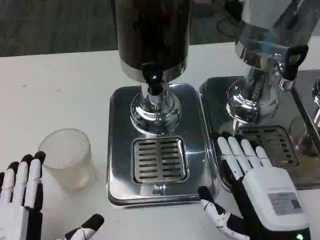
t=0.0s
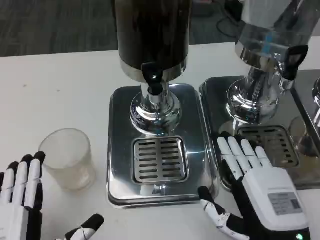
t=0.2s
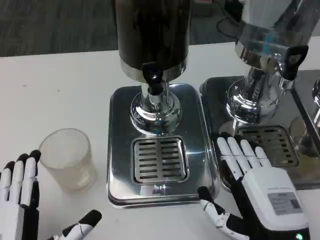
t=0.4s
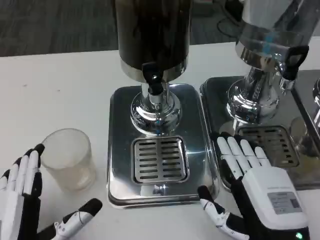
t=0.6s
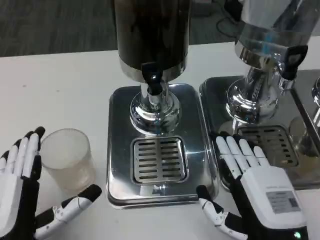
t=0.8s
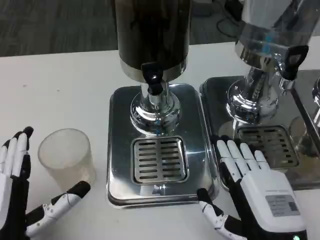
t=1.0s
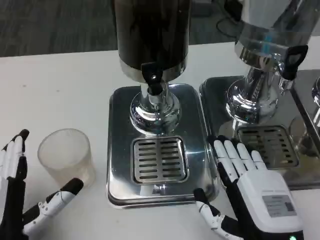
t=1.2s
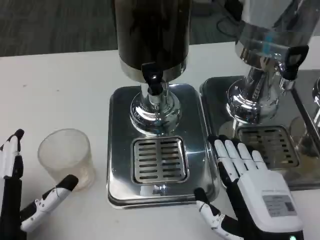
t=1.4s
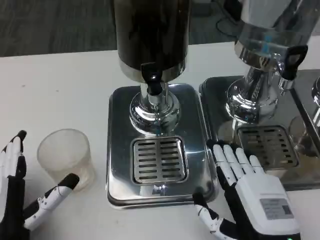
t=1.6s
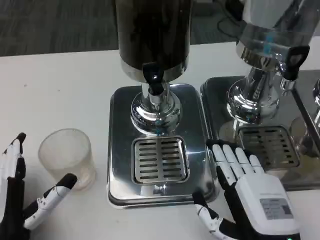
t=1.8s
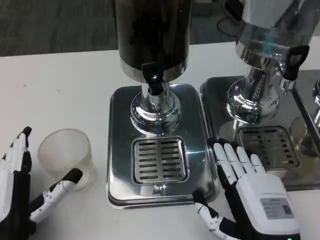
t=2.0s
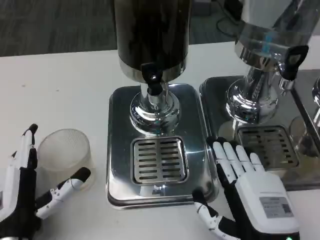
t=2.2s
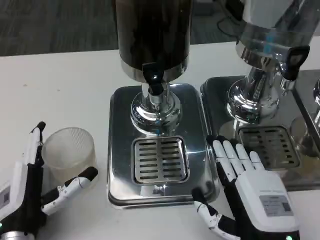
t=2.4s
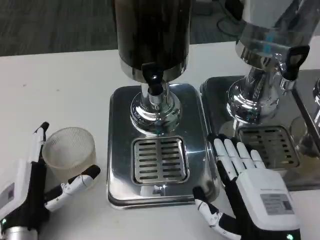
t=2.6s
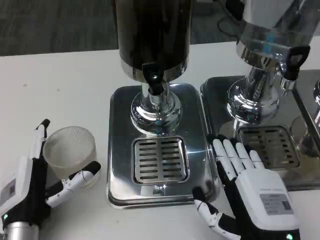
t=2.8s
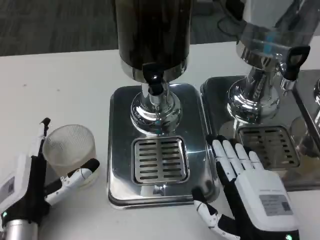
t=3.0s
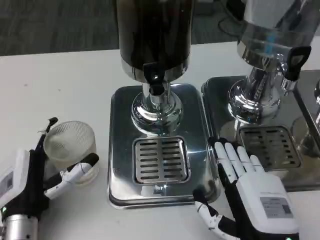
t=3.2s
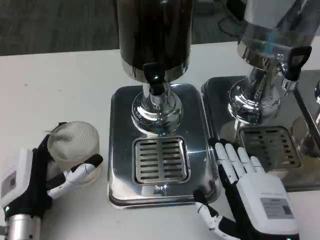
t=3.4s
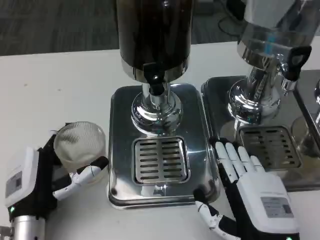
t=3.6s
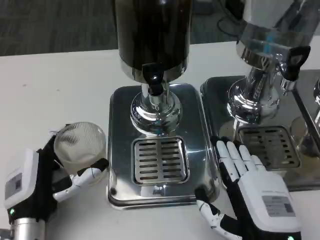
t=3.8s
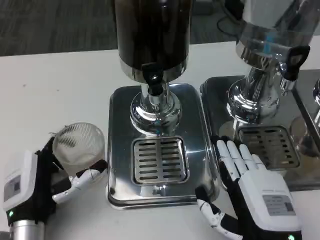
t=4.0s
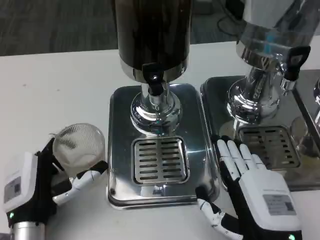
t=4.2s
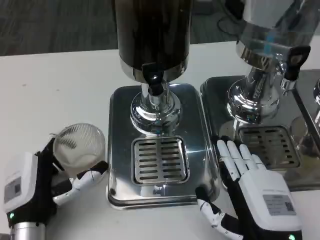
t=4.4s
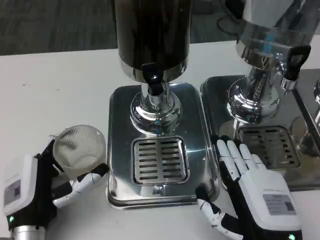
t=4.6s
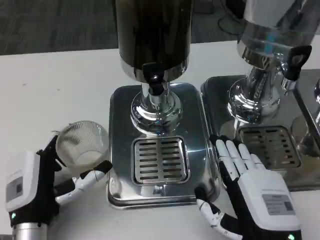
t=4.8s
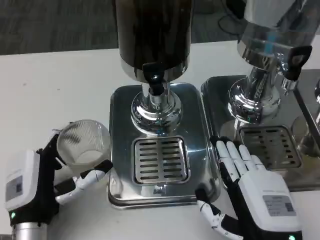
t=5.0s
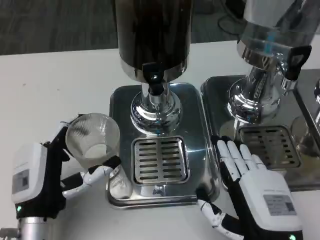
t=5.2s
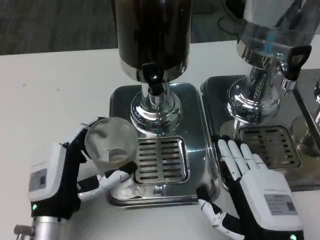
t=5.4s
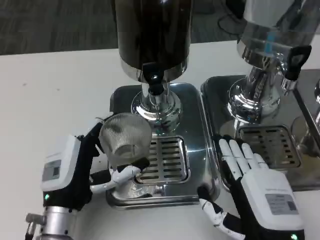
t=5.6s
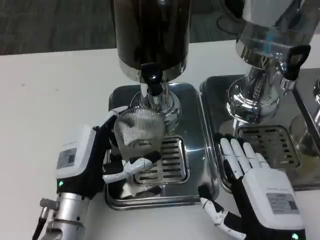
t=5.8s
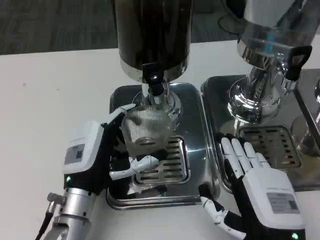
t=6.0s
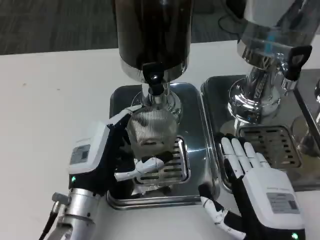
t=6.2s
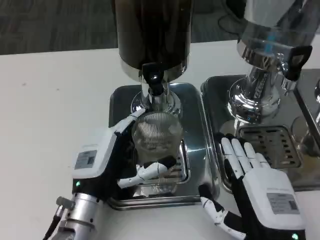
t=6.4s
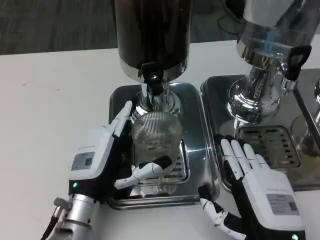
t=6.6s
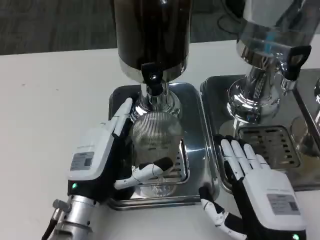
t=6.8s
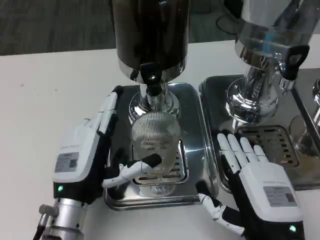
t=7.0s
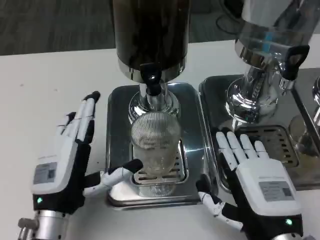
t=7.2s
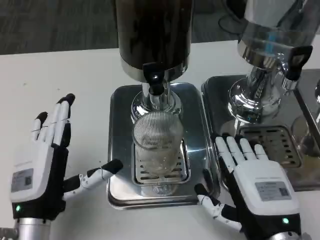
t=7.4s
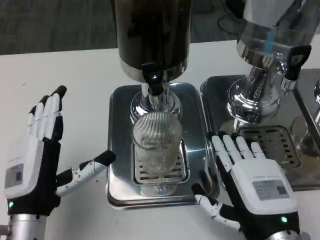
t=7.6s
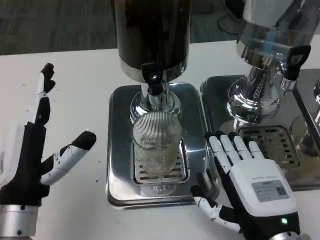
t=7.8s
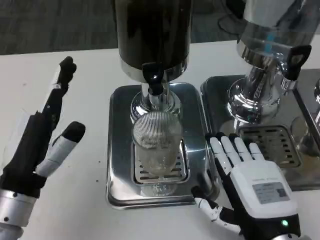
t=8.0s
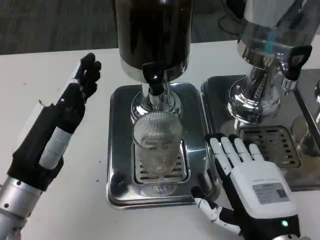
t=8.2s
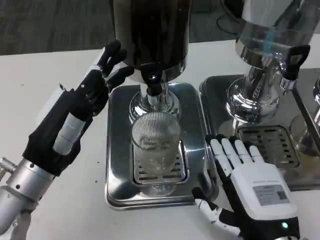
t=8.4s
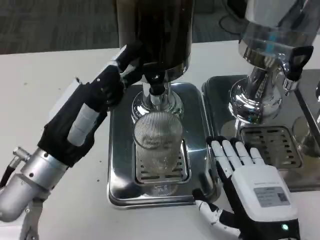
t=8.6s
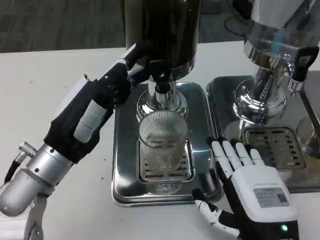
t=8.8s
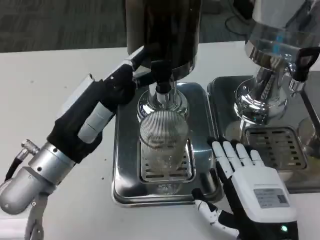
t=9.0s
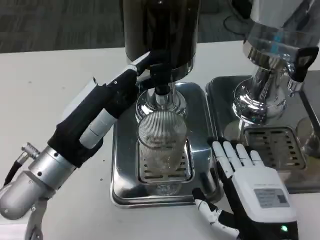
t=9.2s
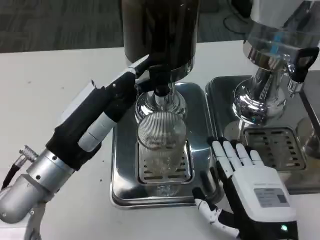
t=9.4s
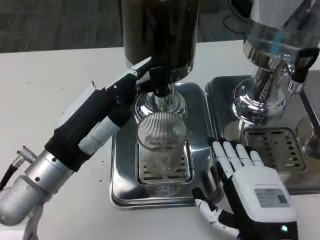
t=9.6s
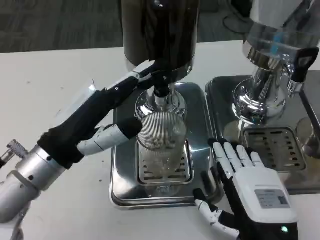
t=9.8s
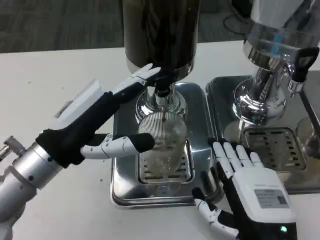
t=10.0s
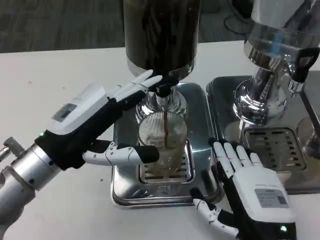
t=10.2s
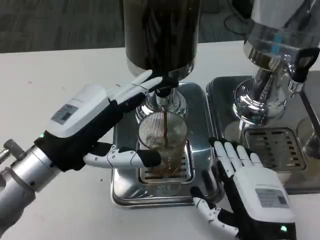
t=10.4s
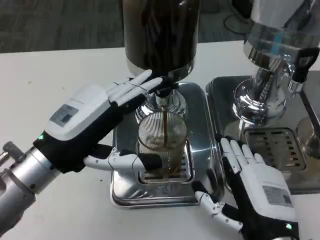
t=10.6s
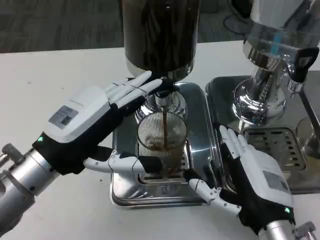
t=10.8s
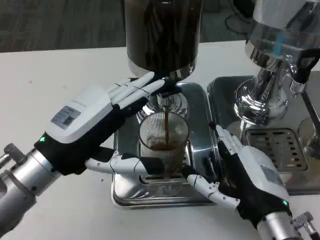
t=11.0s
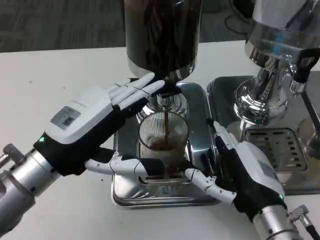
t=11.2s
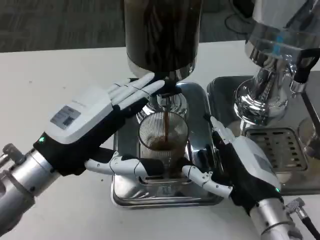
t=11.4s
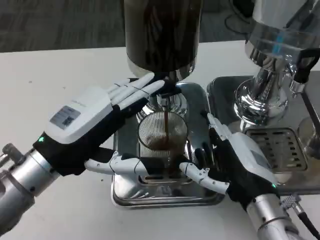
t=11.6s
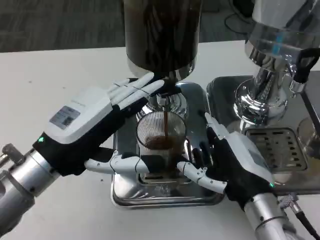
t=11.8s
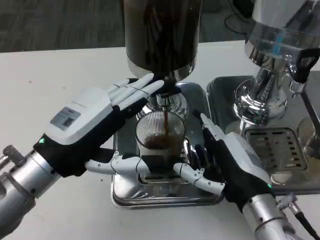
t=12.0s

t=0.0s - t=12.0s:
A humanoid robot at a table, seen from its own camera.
Task of the whole recording: Grasp the cup under the faucet to collect the drink, then remove the cup.
t=0.0s - t=1.6s: The left hand heads forward, covering approximately 5 cm.
t=1.6s - t=3.0s: The left hand travels forward by about 5 cm.
t=3.0s - t=4.4s: There are only small adjustments of the hands.
t=4.4s - t=6.0s: The left hand is displaced to the right by about 5 cm.
t=6.0s - t=7.6s: The left hand moves about 5 cm.
t=7.6s - t=9.0s: The left hand is displaced forward and upward by some 10 cm.
t=10.4s - t=12.0s: The right hand heads forward, covering about 5 cm.

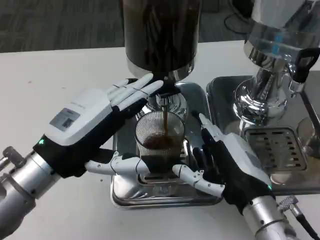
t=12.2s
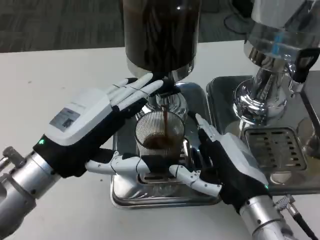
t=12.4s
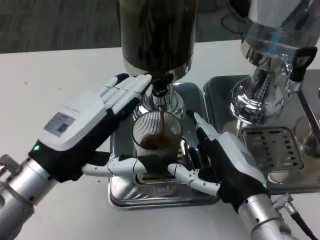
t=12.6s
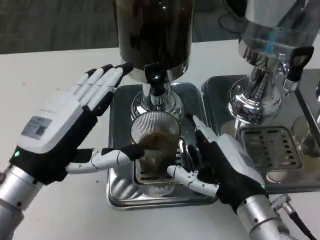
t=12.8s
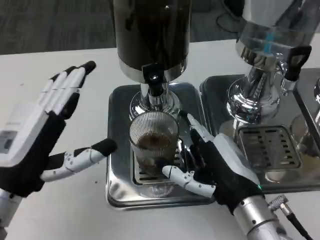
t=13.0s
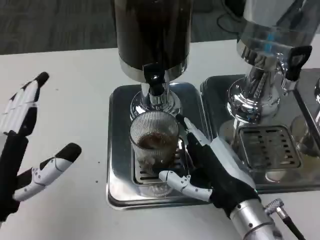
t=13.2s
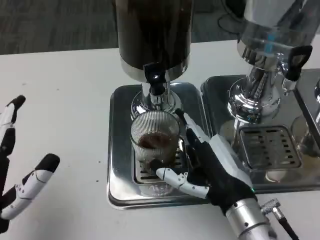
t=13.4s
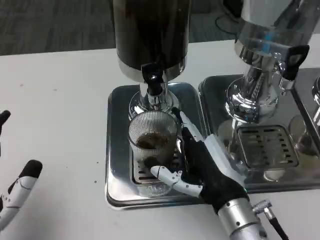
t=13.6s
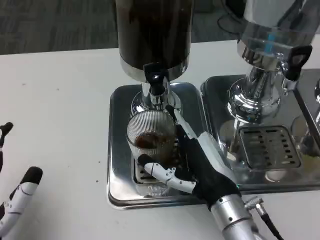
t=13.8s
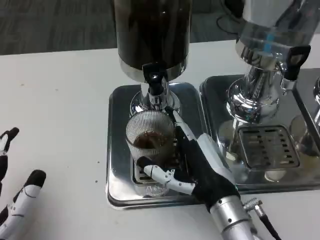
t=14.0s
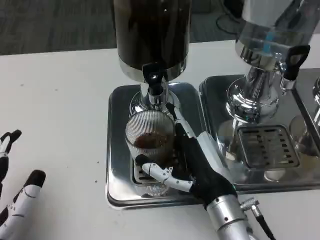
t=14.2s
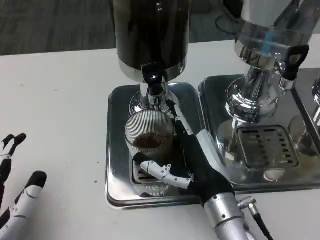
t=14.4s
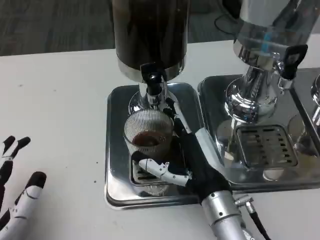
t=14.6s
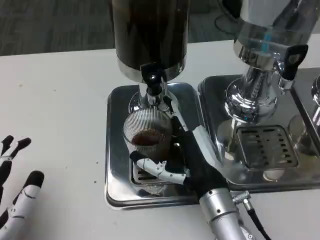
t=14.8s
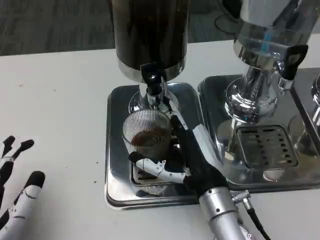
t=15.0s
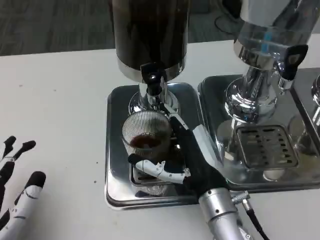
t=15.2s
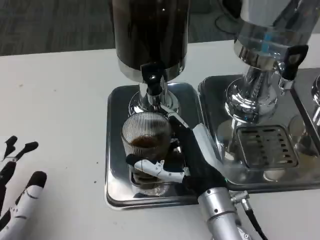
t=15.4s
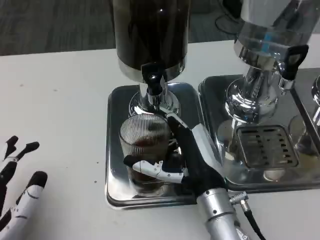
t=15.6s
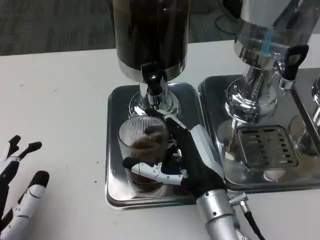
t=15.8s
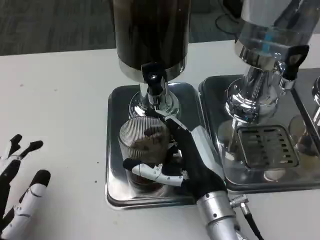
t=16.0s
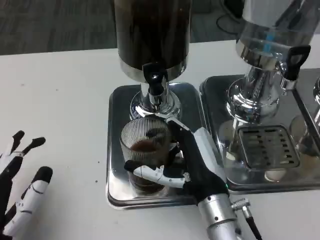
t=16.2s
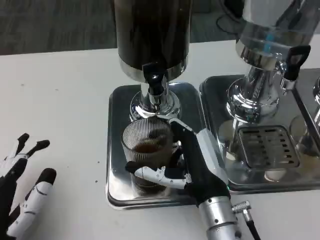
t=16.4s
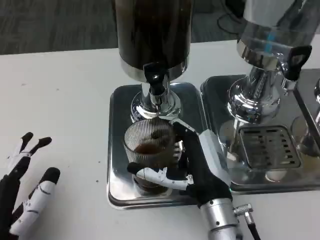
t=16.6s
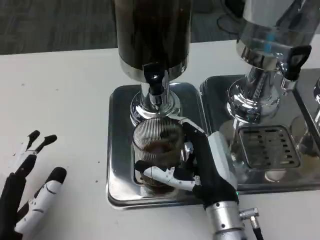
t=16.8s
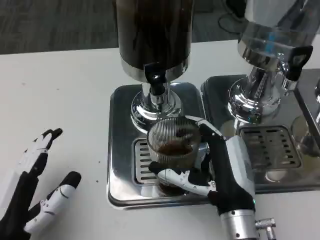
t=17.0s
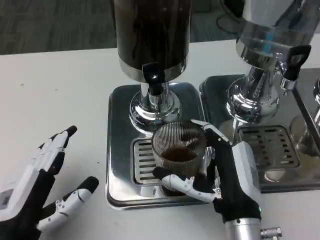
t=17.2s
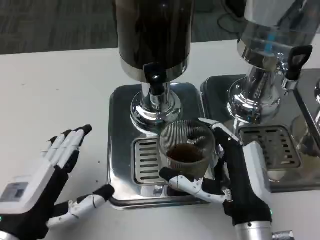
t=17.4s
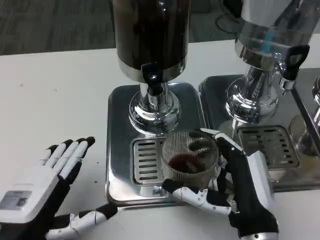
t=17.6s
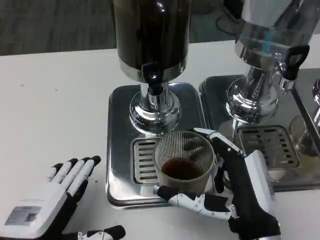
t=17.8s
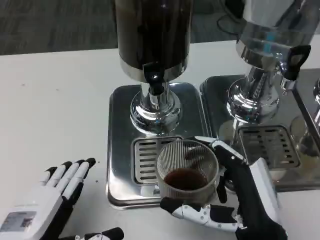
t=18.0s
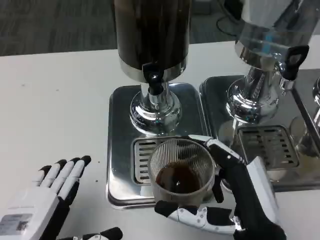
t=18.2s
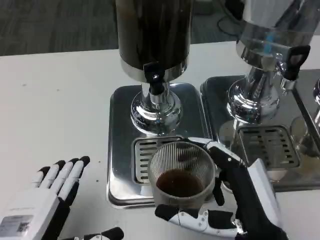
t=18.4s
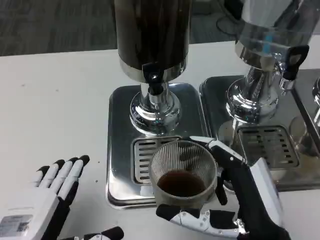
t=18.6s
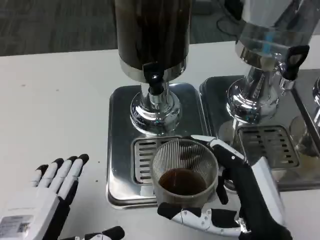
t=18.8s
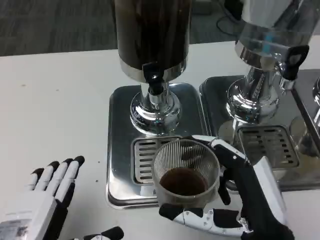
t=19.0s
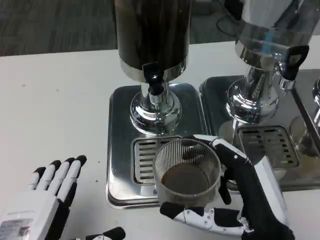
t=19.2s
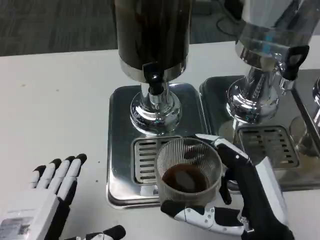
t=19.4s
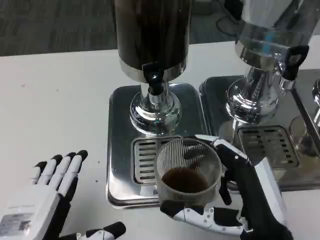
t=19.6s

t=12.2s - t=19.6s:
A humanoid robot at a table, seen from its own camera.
Task of the whole recording: Grasp the cup under the faucet to collect the drink, then remove the cup.
t=12.2s - t=13.6s: The left hand shifts about 15 cm backward and downward.
t=13.6s - t=15.2s: The hands make only small movements.
t=16.6s - t=18.2s: The left hand shifts by roughly 5 cm. The right hand shifts roughly 10 cm backward and to the right.
t=18.2s - t=19.6s: The hands make only small movements.

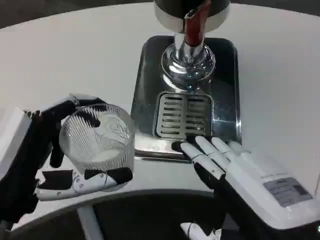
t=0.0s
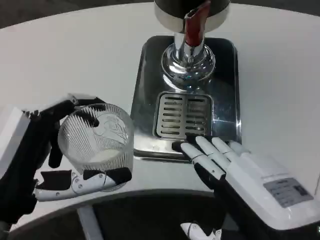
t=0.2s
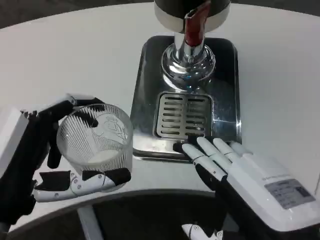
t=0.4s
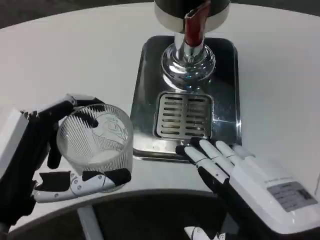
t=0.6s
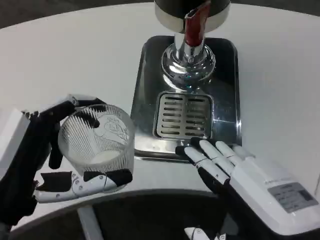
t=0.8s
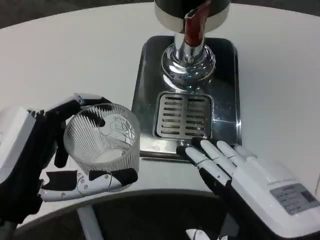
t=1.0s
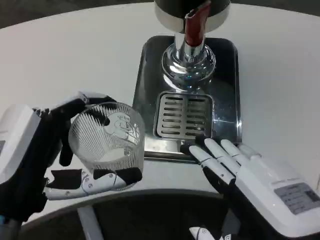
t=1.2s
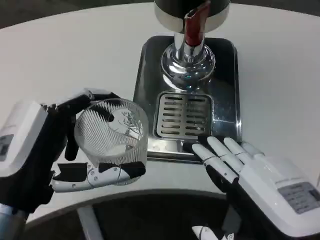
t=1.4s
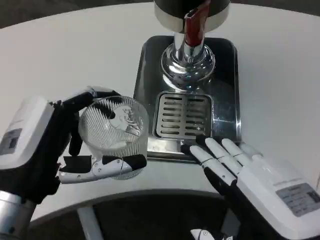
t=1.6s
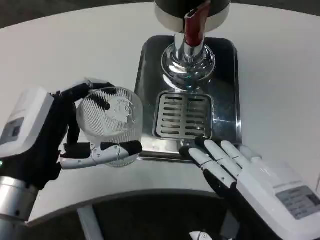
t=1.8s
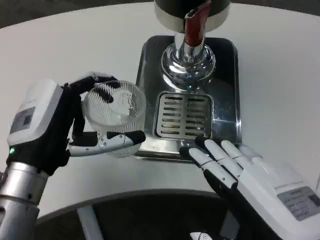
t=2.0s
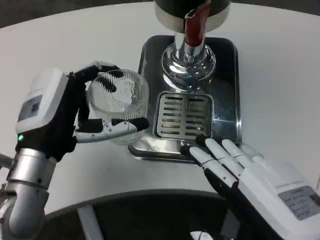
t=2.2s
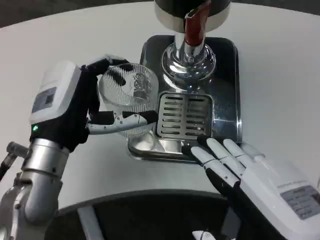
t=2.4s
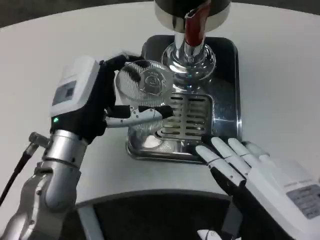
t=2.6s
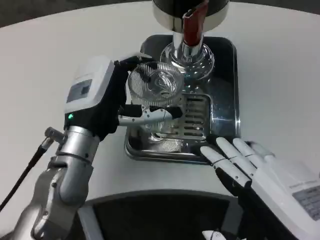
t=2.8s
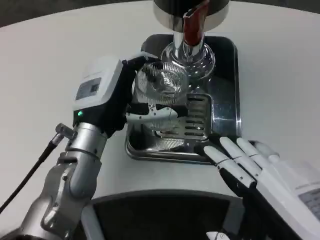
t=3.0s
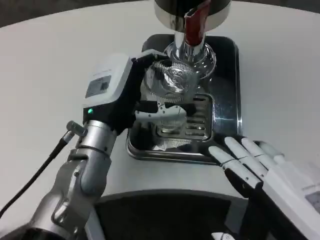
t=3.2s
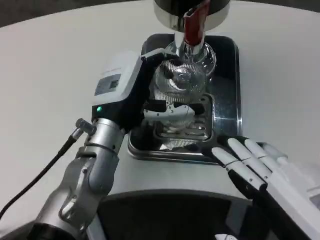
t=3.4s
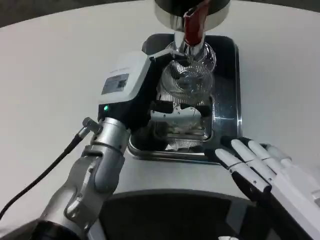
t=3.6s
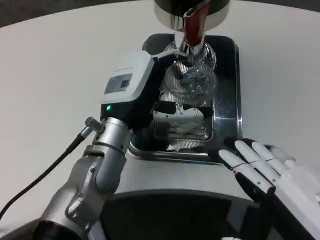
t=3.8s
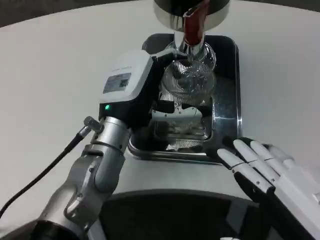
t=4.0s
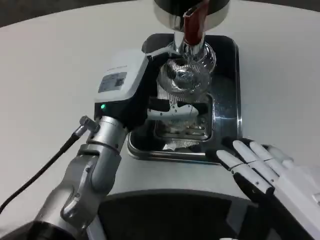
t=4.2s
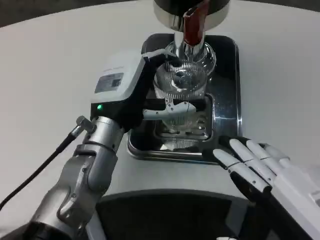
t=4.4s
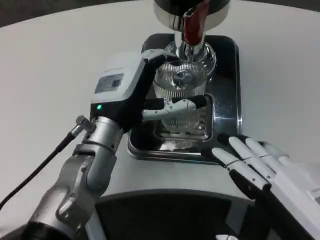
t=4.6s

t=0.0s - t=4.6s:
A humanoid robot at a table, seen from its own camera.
Task of the whole recording: Grasp the cup under the faucet to collect the drink, then remove the cup.
t=0.0s - t=1.6s: The hands make only small movements.
t=1.6s - t=3.0s: The left hand goes some 15 cm forward and to the right.
